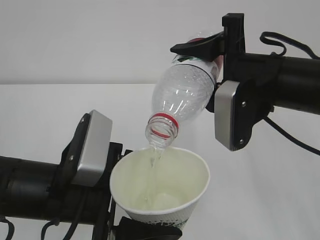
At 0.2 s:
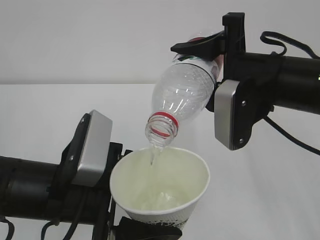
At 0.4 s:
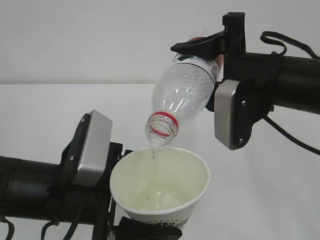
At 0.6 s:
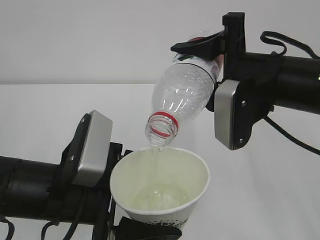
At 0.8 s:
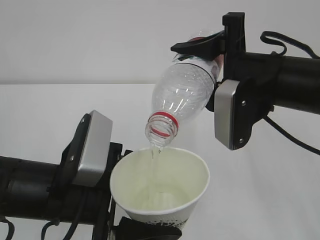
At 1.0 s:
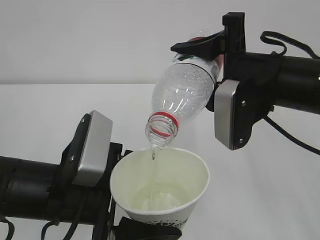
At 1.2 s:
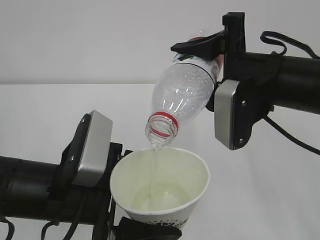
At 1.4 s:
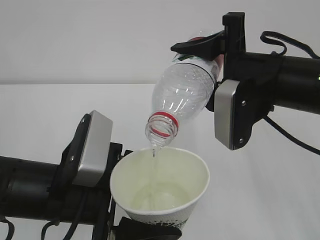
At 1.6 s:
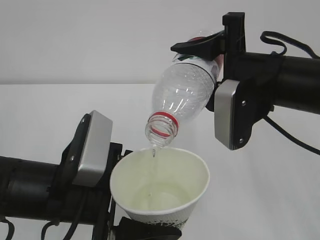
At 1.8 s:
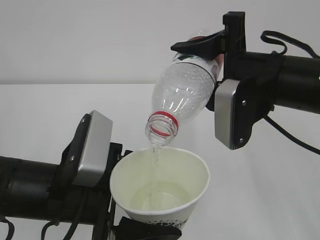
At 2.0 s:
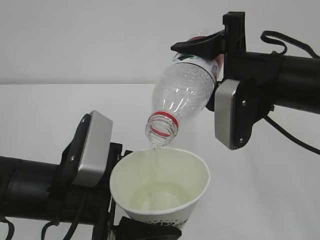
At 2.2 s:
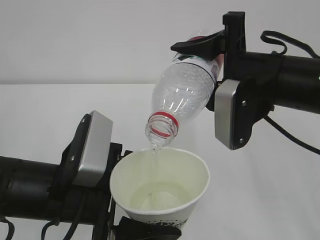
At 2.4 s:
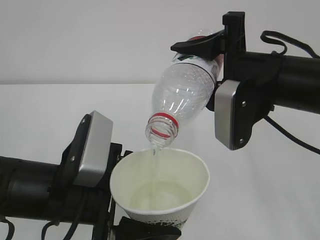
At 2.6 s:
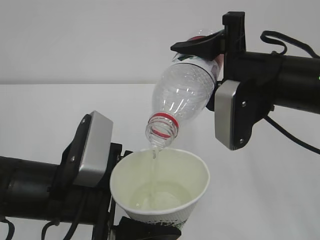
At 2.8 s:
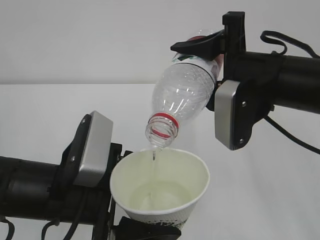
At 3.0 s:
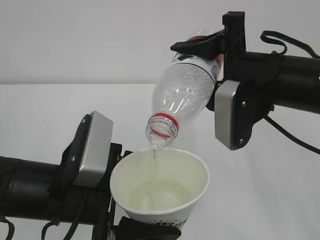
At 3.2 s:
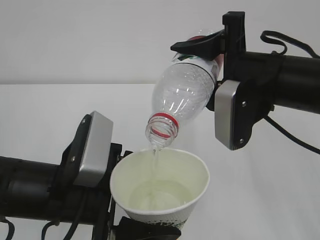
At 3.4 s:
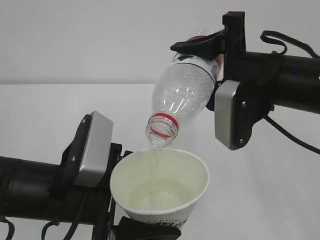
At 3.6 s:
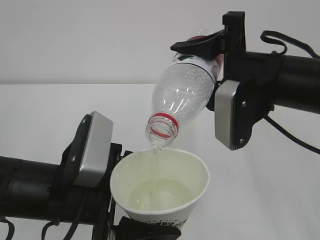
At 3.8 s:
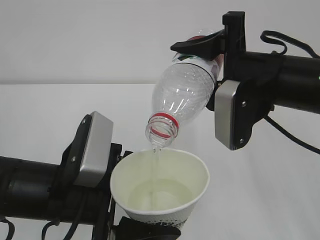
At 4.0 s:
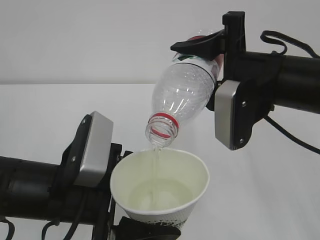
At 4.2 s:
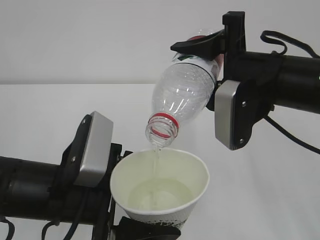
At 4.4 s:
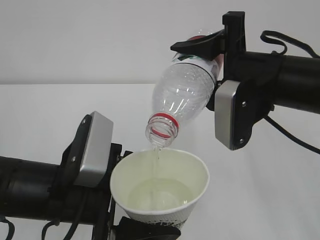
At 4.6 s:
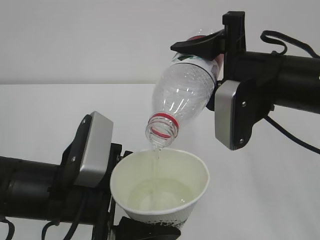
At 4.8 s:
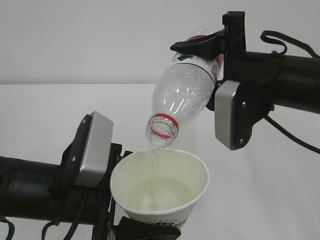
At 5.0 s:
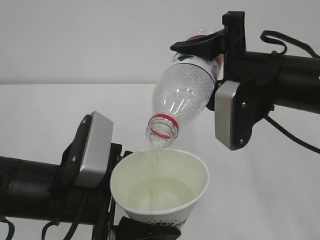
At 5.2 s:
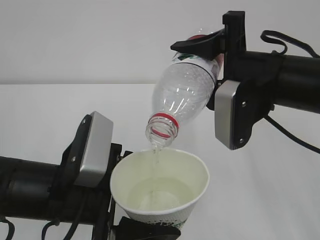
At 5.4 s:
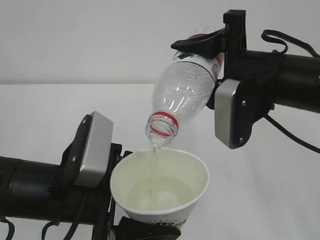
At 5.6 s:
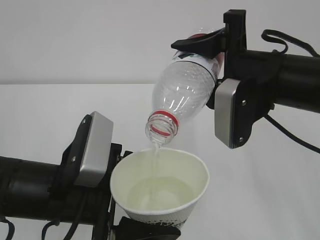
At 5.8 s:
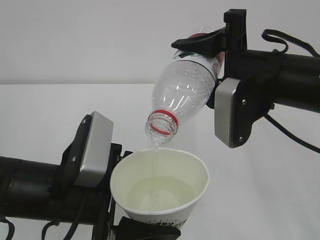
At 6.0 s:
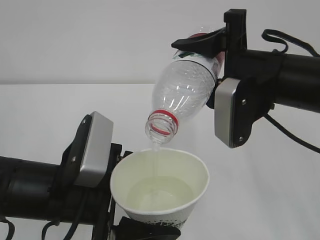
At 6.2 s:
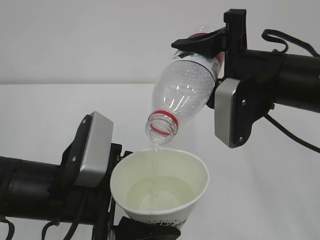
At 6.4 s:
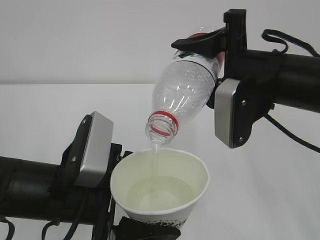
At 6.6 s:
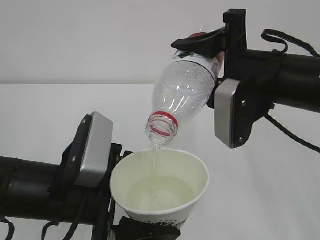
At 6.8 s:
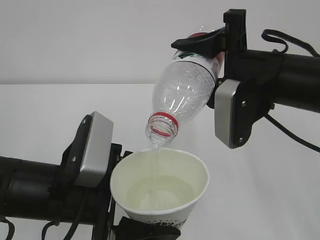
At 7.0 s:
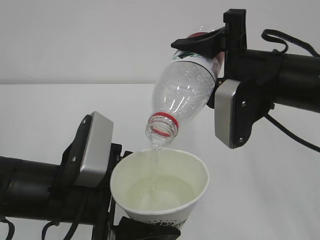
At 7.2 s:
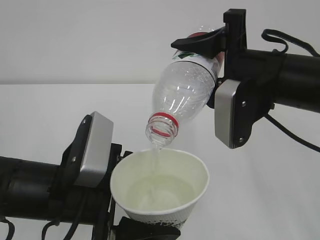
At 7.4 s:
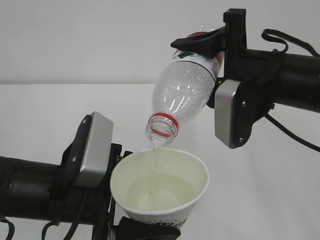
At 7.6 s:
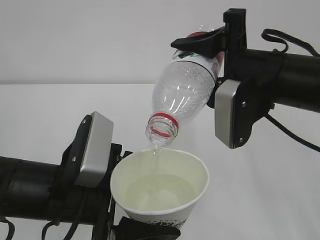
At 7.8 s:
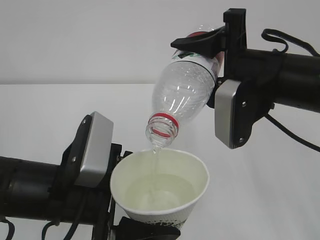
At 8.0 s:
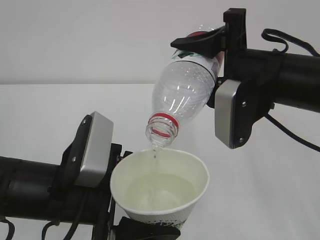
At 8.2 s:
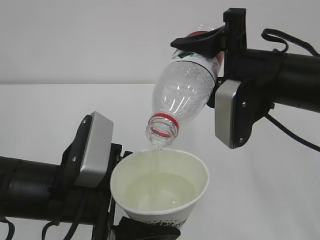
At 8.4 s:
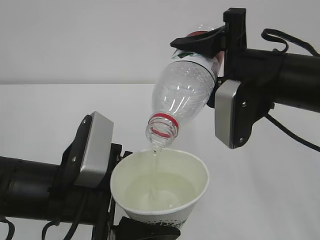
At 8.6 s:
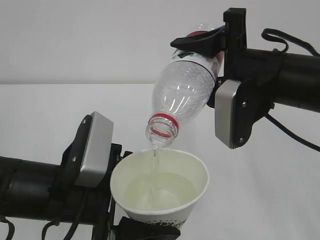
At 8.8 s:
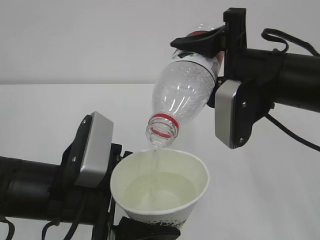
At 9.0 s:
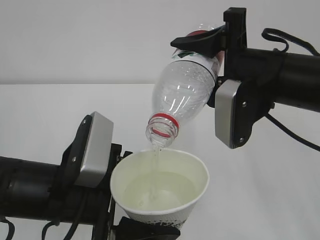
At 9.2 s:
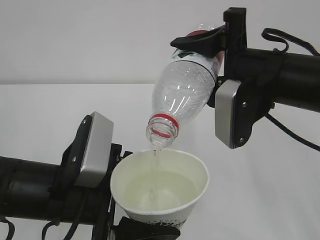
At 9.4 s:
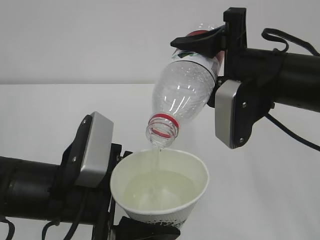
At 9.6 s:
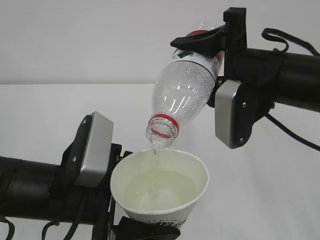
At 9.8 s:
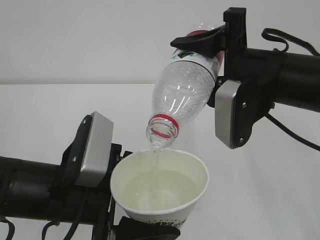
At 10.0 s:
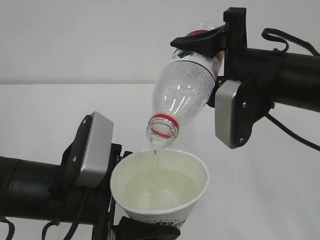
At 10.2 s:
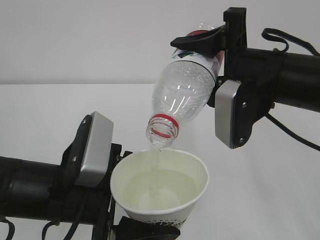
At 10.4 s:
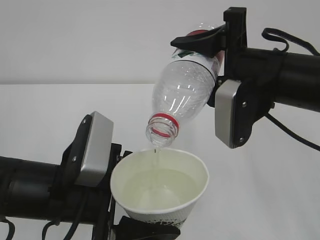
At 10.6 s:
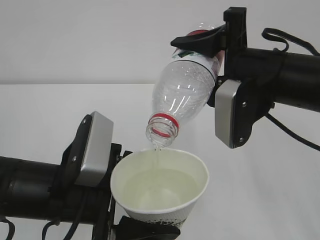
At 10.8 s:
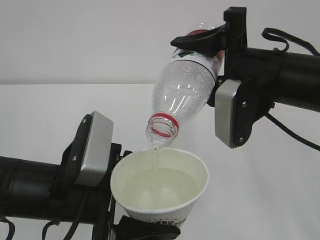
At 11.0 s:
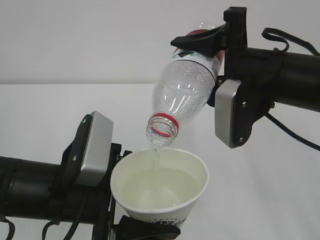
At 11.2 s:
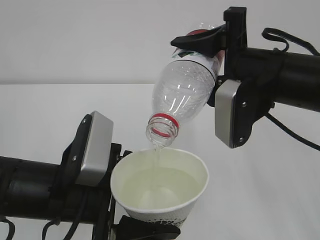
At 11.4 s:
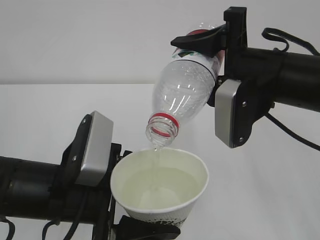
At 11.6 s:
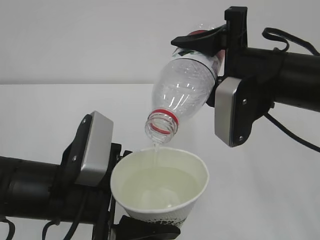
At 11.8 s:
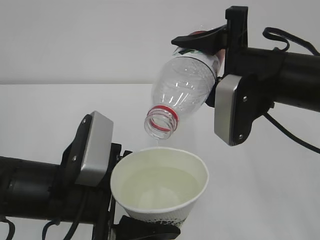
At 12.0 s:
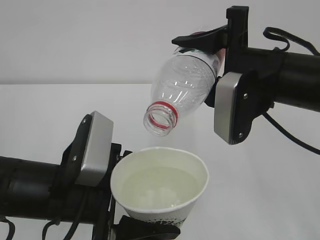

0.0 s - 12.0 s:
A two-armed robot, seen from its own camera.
0.0 s - 10.4 s: Both grippers stay about where they are.
10.4 s - 12.0 s: The grippers move only a little.

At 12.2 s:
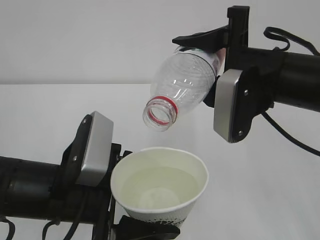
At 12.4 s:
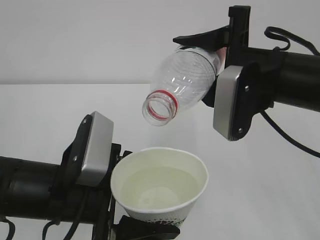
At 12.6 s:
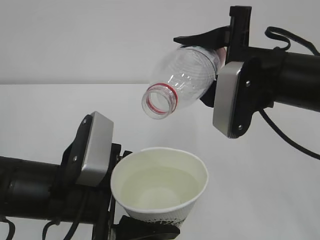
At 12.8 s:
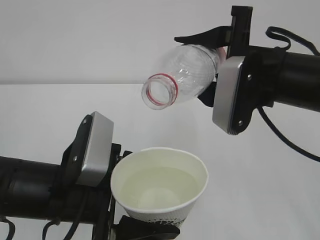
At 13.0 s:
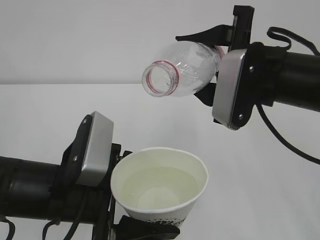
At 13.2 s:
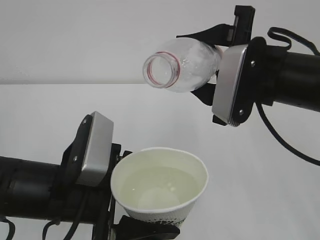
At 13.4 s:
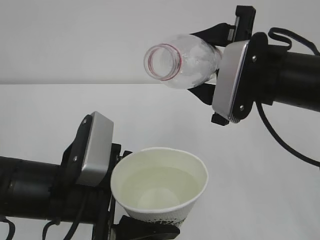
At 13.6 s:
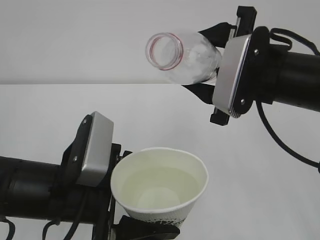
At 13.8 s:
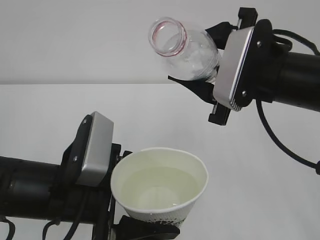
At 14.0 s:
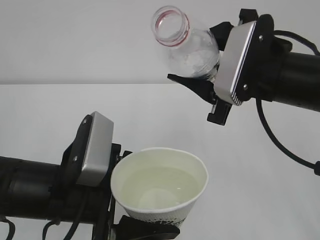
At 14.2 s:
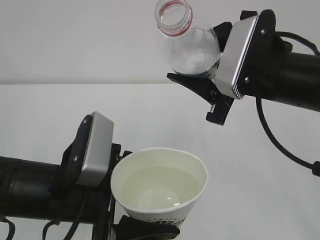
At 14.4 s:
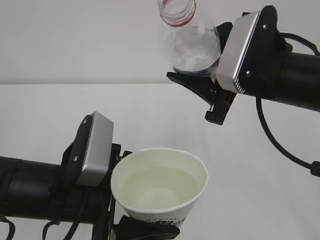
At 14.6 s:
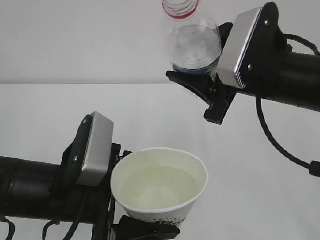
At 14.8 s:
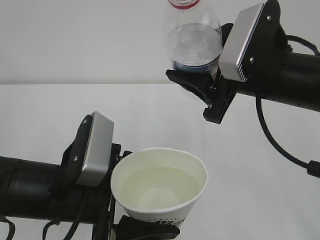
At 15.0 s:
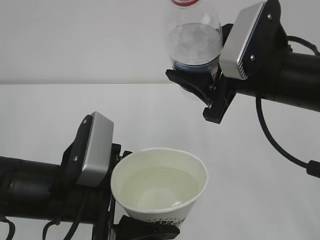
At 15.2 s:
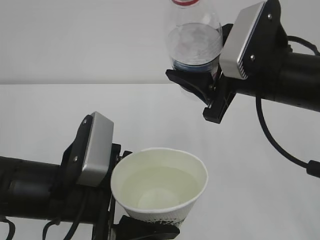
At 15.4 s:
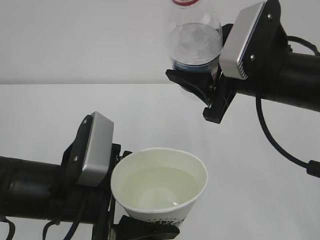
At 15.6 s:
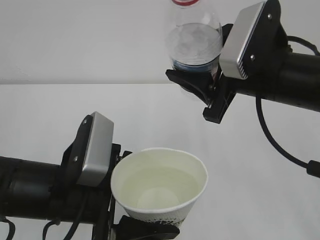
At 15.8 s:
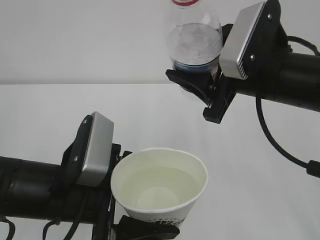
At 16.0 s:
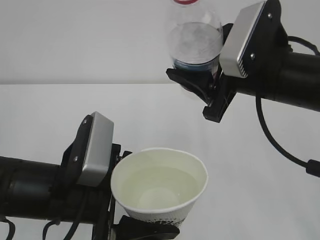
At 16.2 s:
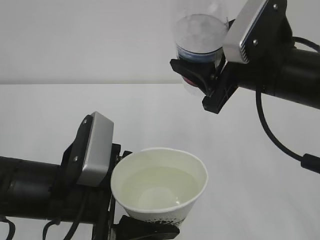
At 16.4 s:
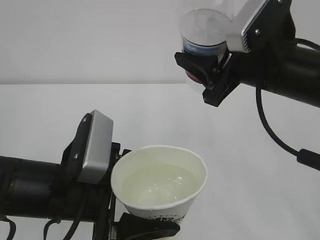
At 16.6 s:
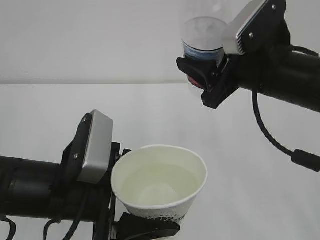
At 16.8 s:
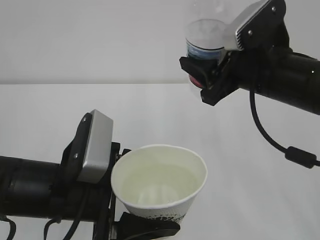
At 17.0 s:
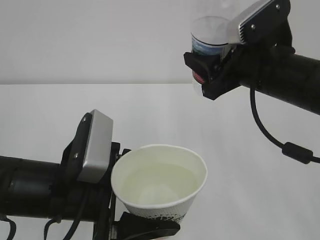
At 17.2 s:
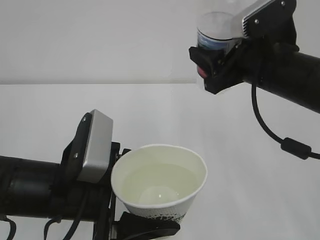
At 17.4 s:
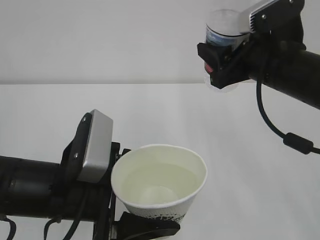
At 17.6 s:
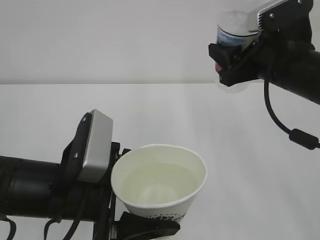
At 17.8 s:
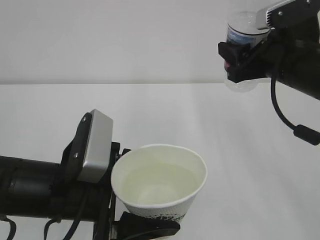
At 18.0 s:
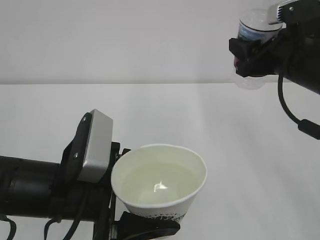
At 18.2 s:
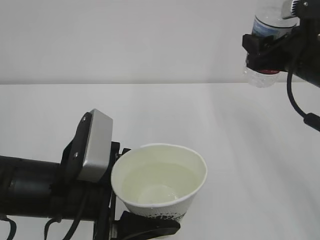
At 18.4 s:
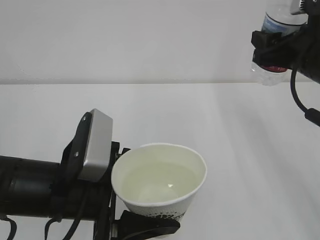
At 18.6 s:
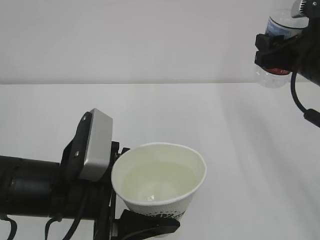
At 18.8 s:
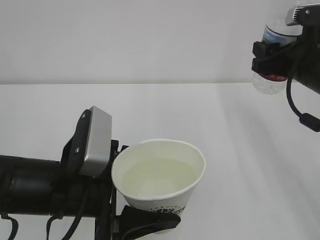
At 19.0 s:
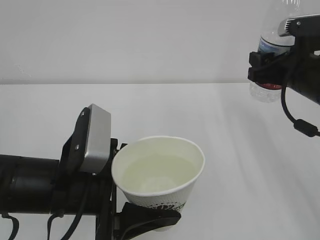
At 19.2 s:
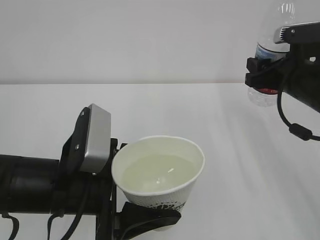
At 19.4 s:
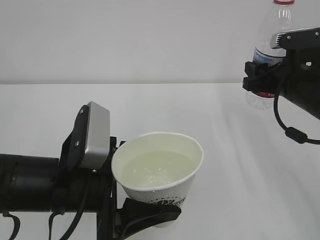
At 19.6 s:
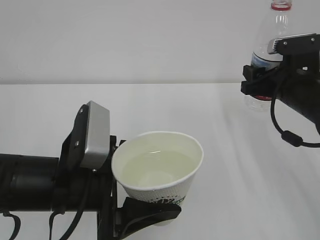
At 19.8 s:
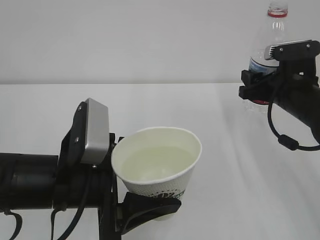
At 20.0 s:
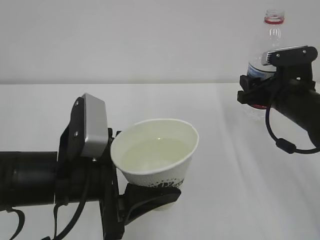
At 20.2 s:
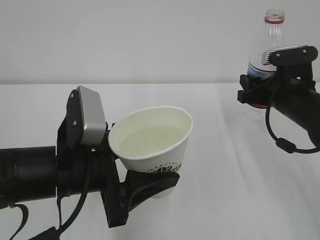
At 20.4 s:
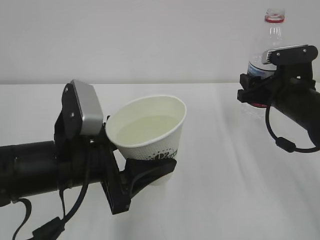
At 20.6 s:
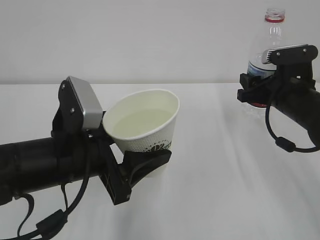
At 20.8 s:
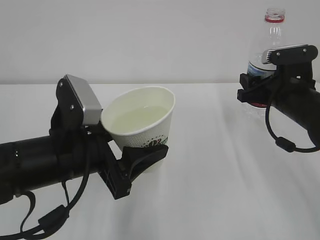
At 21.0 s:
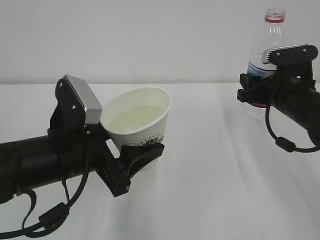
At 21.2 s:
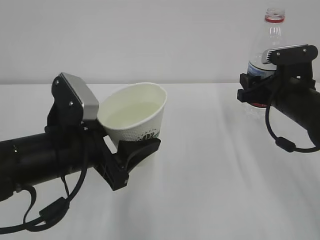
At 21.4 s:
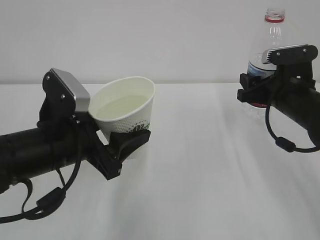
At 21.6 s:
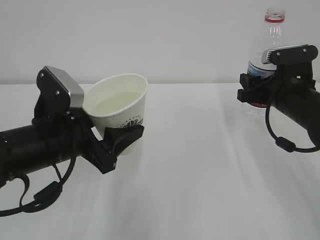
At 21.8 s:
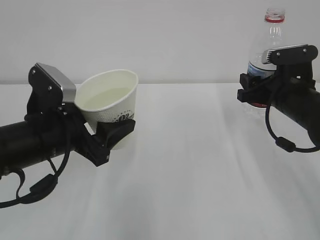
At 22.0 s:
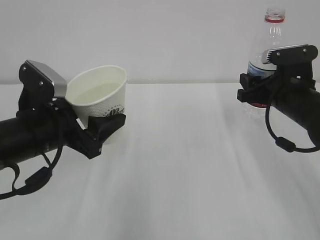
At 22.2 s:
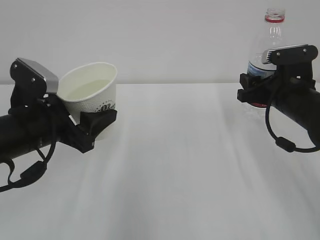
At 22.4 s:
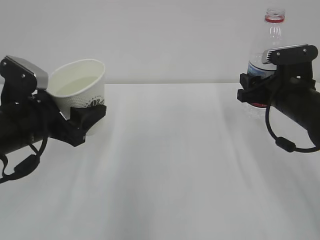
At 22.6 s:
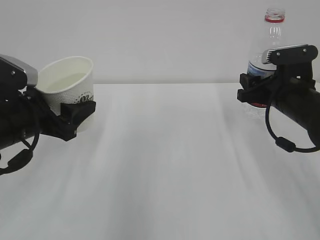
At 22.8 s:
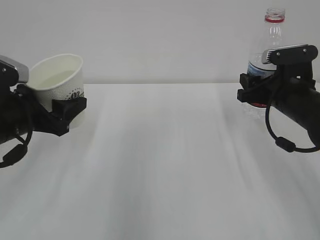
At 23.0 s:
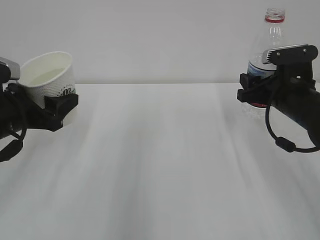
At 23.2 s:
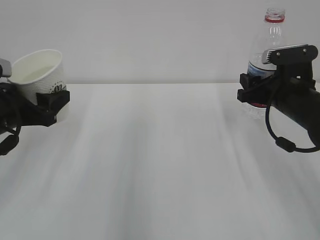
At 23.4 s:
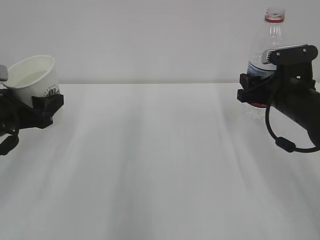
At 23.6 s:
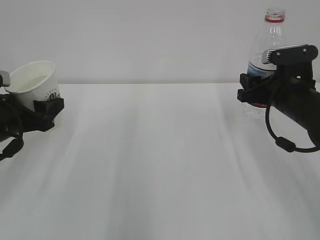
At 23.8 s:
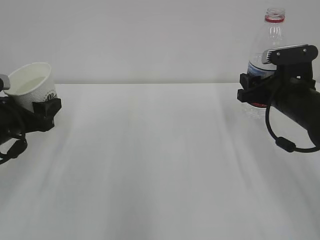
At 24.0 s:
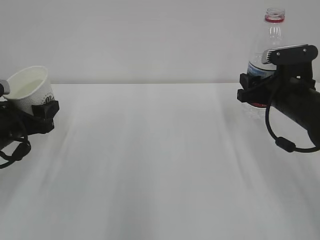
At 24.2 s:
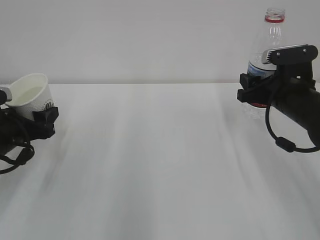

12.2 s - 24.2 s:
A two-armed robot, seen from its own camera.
15.2 s - 16.6 s: The grippers make only small movements.
16.6 s - 18.2 s: The right gripper goes some 10 cm to the right.
18.2 s - 19.8 s: The right gripper goes some 10 cm downward.
21.2 s - 22.6 s: The left gripper goes roughly 10 cm to the left and forward.
22.6 s - 24.2 s: The left gripper shifts some 10 cm downward and to the left.
